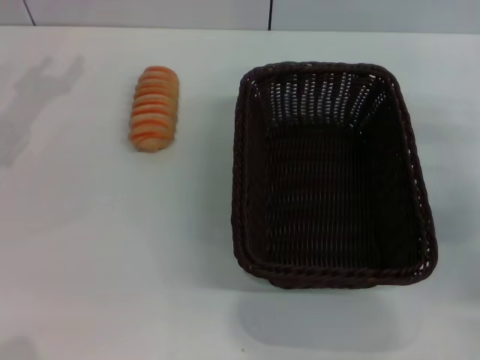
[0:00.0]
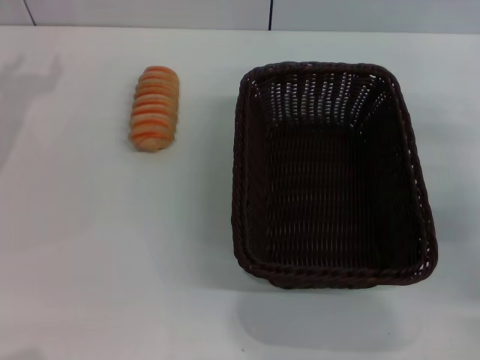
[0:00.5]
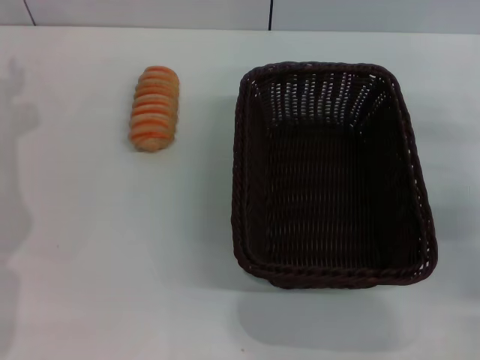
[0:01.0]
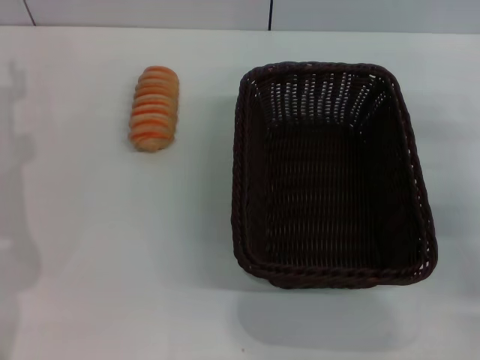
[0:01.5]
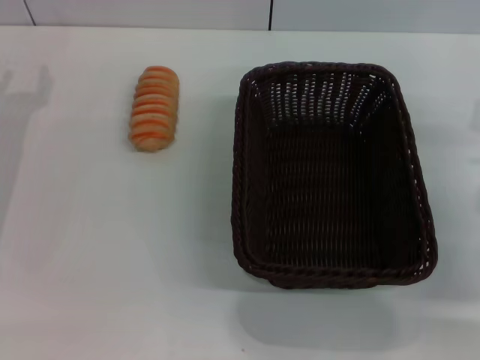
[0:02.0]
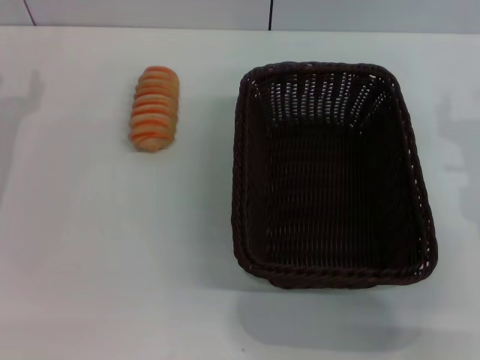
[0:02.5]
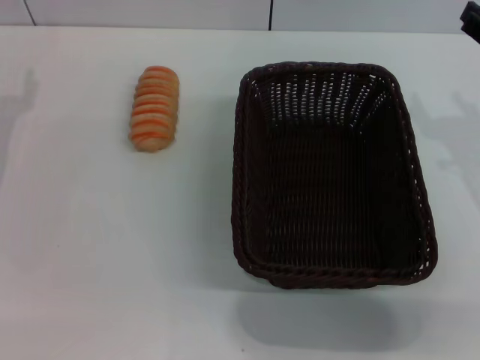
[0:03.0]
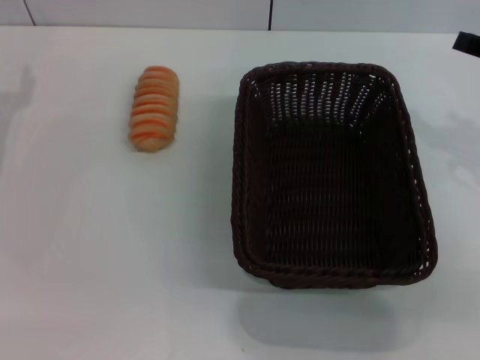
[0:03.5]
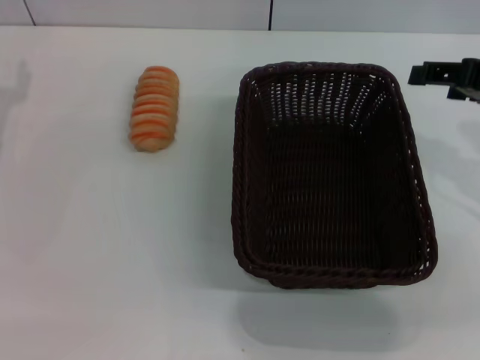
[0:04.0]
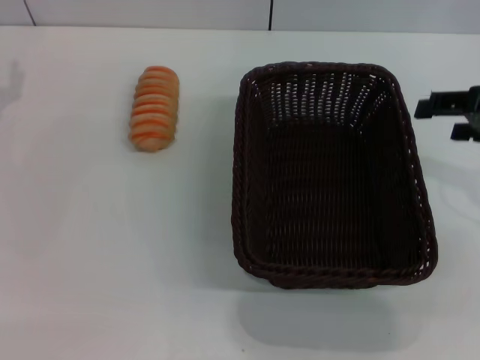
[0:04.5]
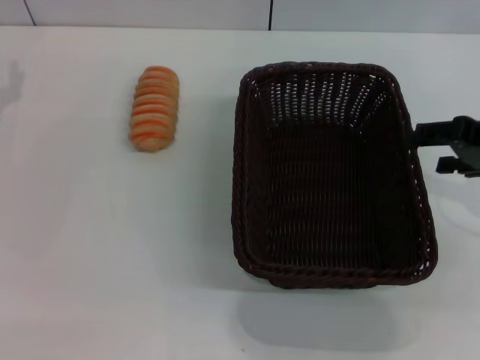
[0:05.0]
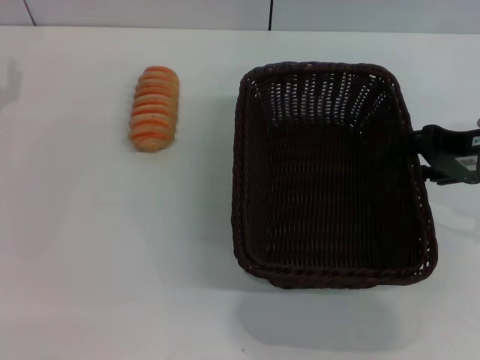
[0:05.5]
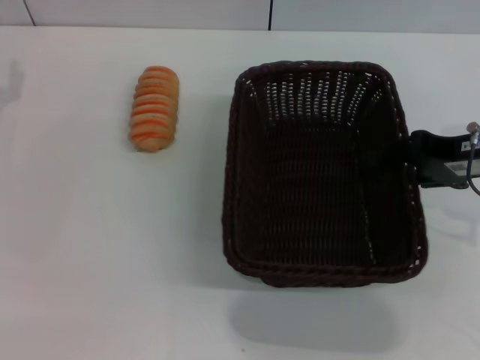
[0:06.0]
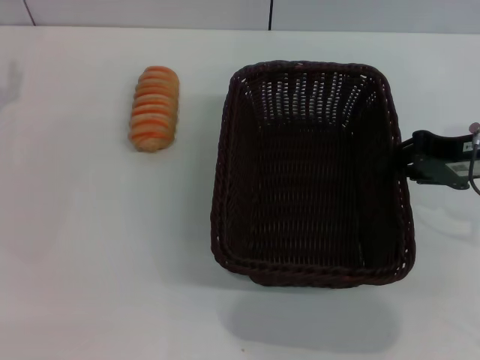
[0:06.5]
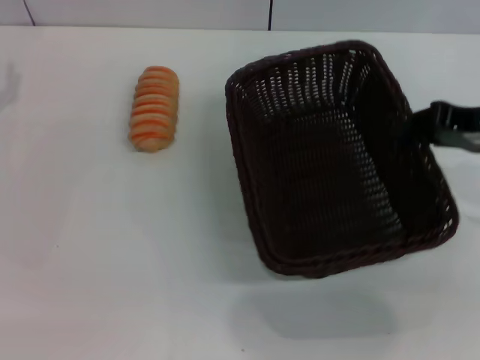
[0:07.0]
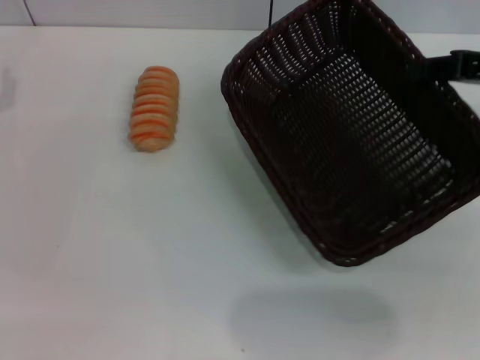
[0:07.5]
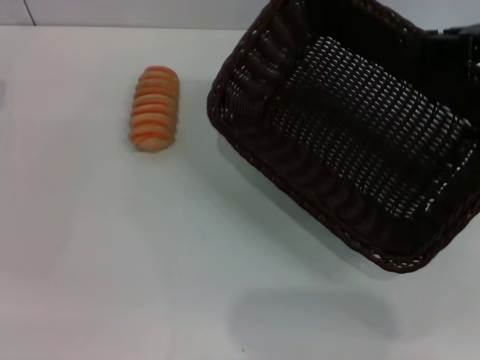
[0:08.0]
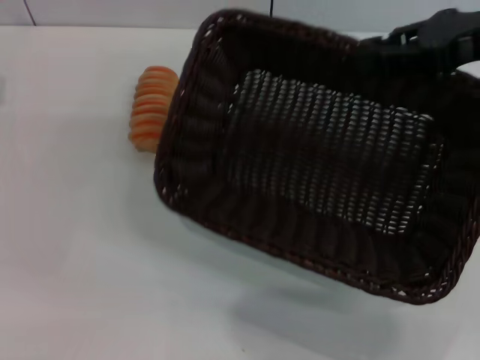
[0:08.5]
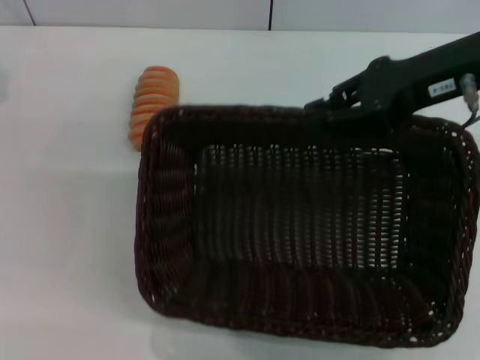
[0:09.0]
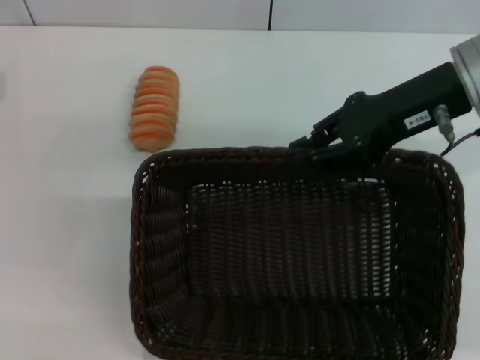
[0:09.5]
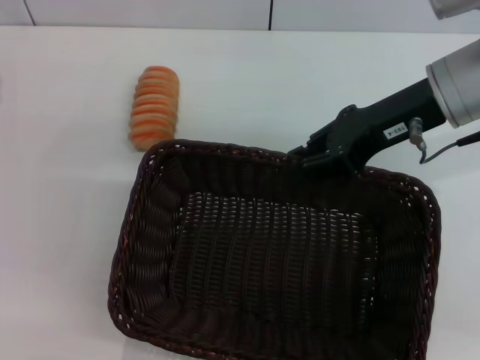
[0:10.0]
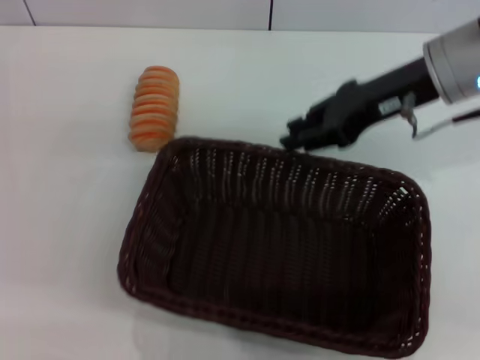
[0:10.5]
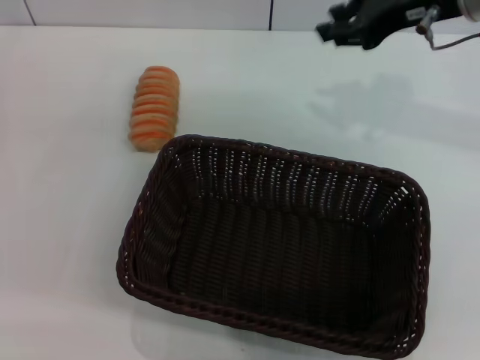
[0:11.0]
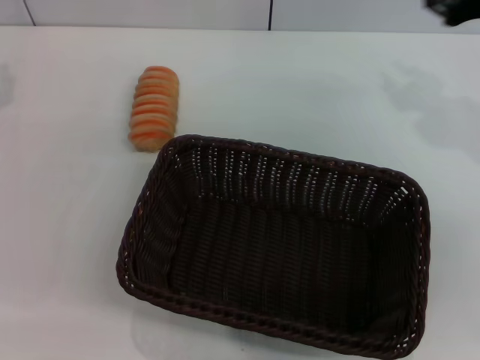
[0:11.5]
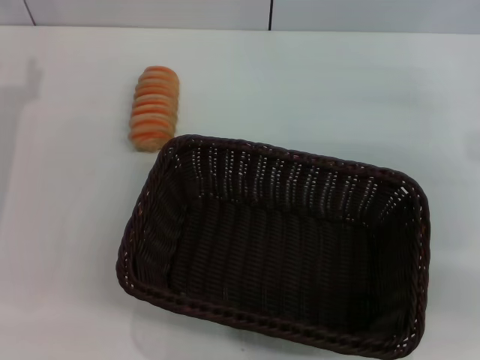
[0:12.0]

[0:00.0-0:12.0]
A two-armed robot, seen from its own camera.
Step, 0:00.0 to 0:07.5: Pick up the dark basket with the right gripper.
Step, 0:08.0 to 0:10.5: Place the dark basket in the center of view with the right gripper.
0:02.0 to 0:04.0: The right gripper shifts some 15 cm upward, and opens its fingers.
0:04.0 to 0:06.0: The right gripper travels downward by about 5 cm.
0:06.0 to 0:08.0: The right gripper shifts roughly 5 cm upward, and closes.
0:08.0 to 0:10.0: The right gripper moves to the left, about 10 cm.
0:10.0 to 0:12.0: The left gripper moves about 5 cm, while the right gripper travels to the right by about 10 cm.

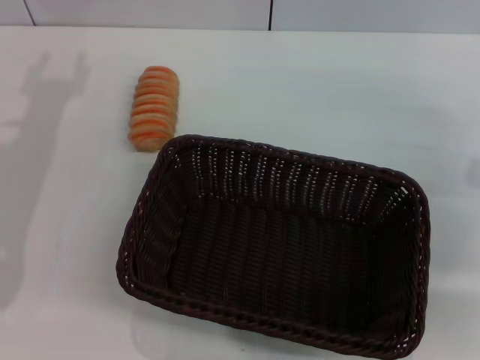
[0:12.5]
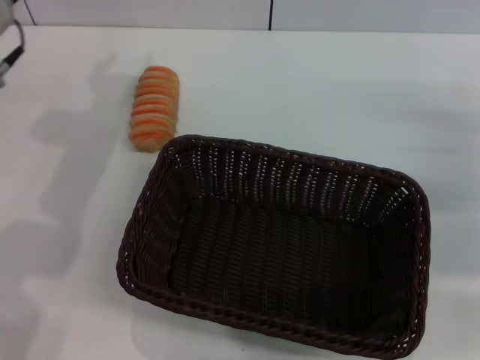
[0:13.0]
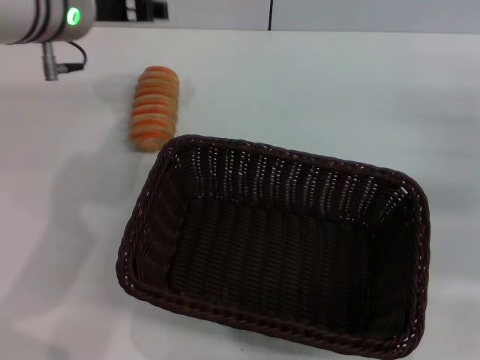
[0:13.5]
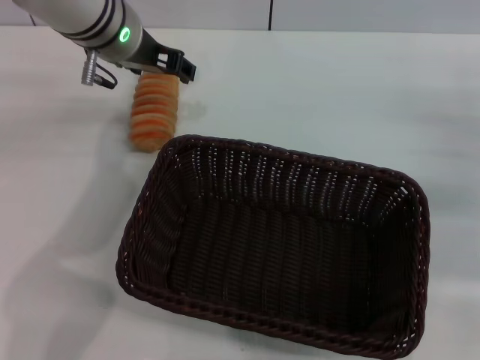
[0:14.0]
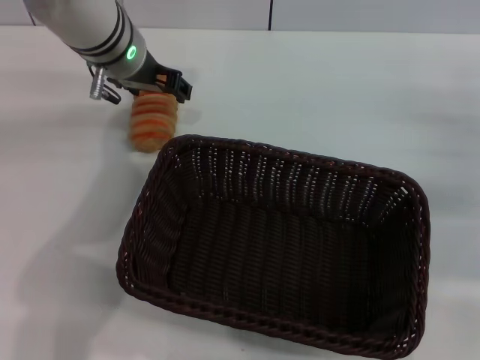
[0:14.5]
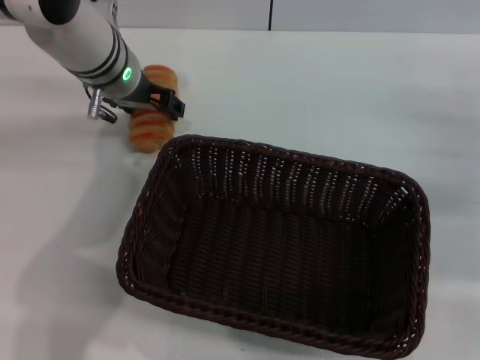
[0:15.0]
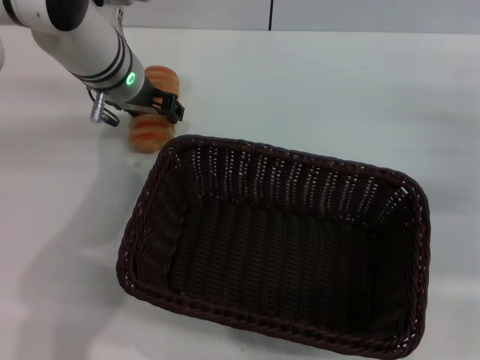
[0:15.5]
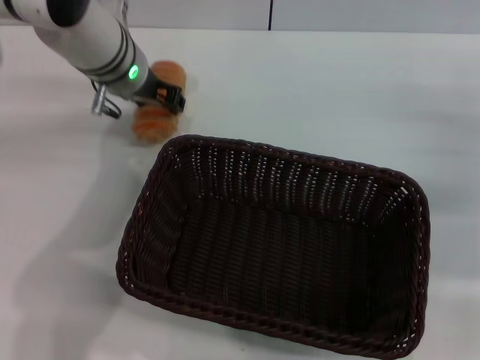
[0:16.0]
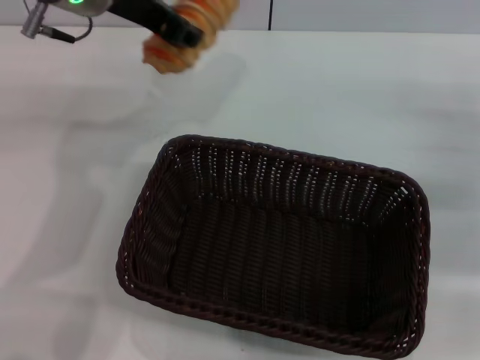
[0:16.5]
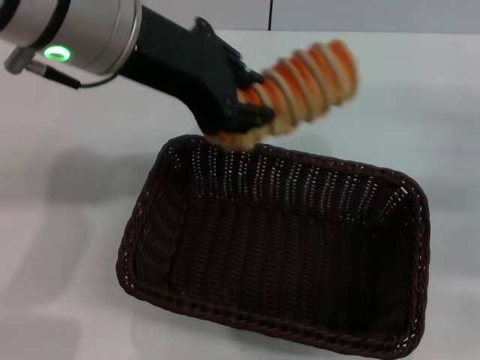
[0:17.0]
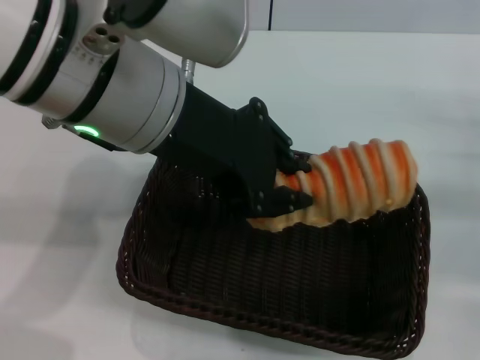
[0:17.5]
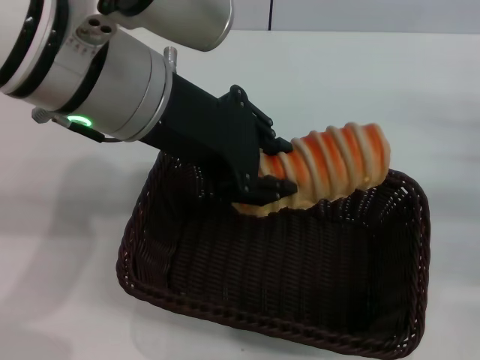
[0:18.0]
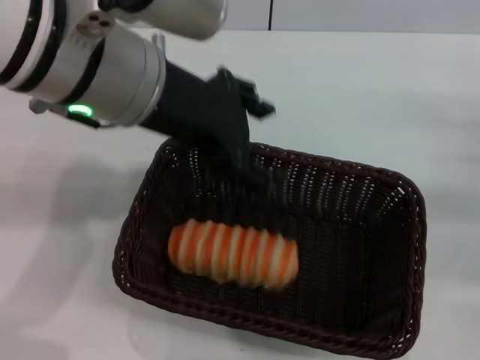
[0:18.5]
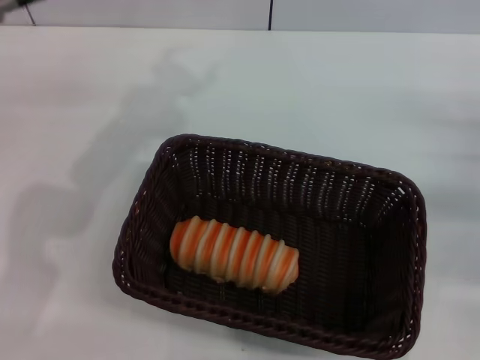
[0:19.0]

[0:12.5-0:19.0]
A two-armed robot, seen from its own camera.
Step, 0:12.5 to 0:16.0: Pick up the long bread with the left gripper.
Step, 0:16.5 to 0:18.0: Place the long bread into the dark basket with the left gripper.
0:12.5 to 0:14.5: The left gripper is displaced to the right and forward by some 20 cm.
0:14.5 to 0:17.0: The left gripper goes about 20 cm backward and upward, and closes.
0:17.0 to 0:19.0: The left gripper is displaced to the left and forward by approximately 5 cm, and opens up.

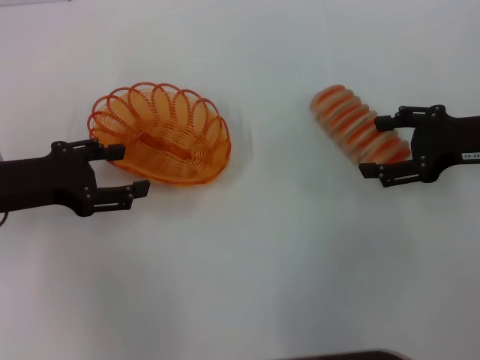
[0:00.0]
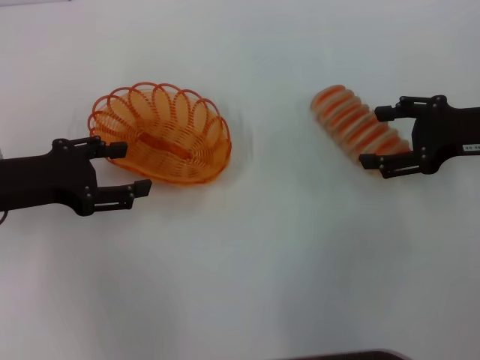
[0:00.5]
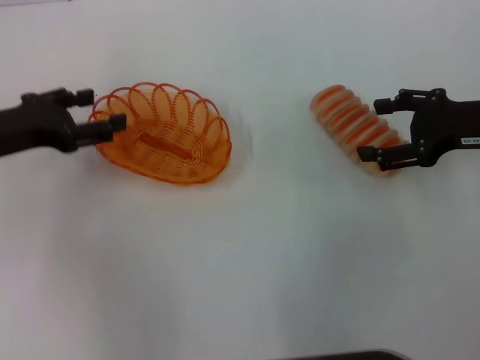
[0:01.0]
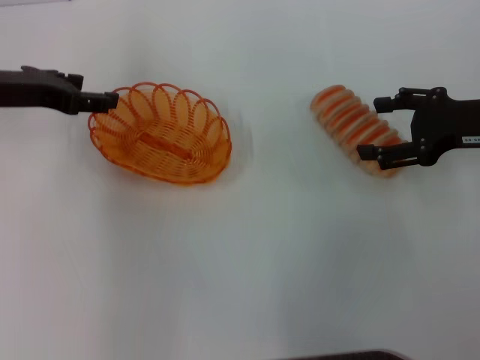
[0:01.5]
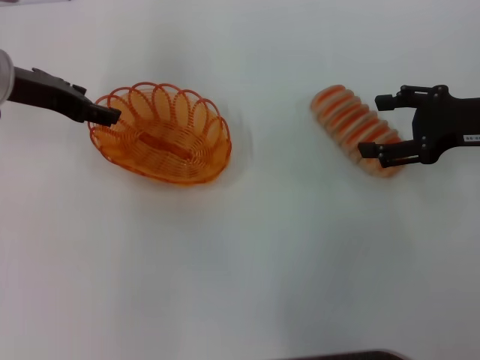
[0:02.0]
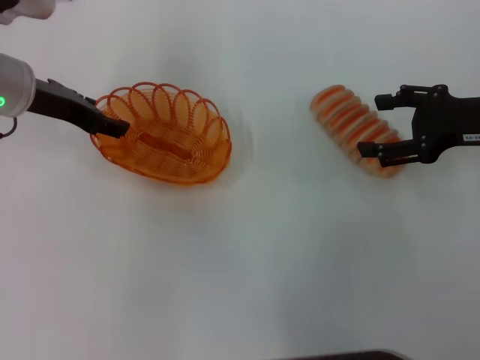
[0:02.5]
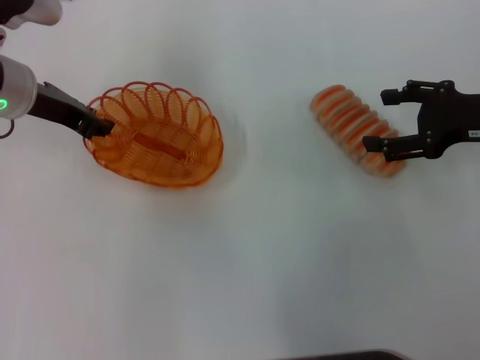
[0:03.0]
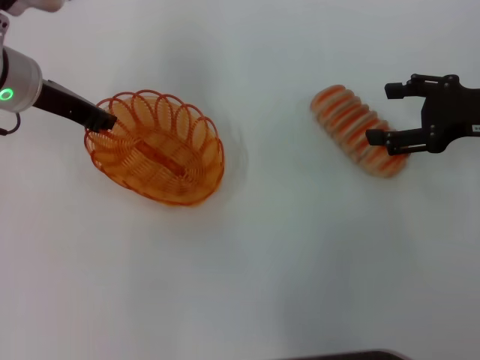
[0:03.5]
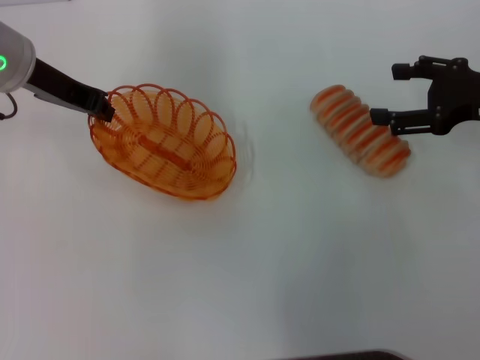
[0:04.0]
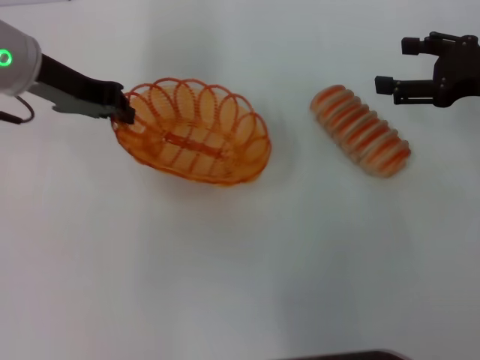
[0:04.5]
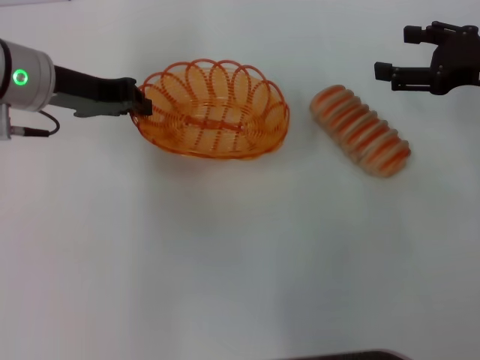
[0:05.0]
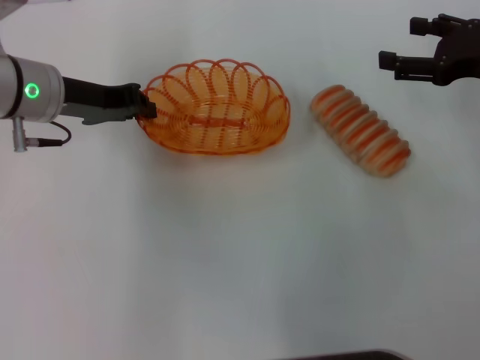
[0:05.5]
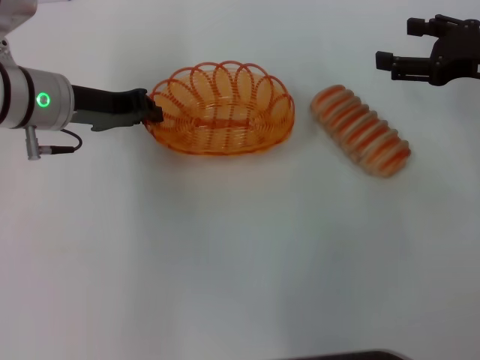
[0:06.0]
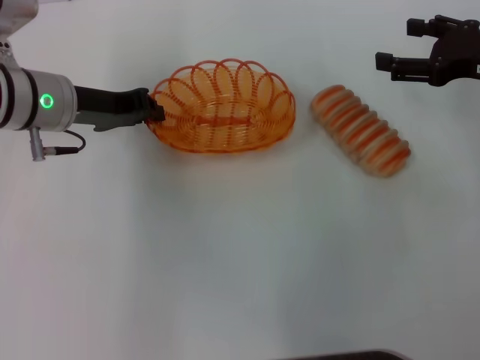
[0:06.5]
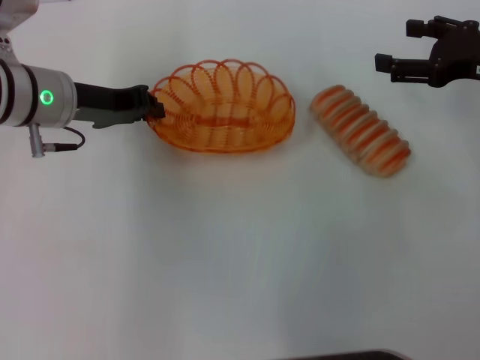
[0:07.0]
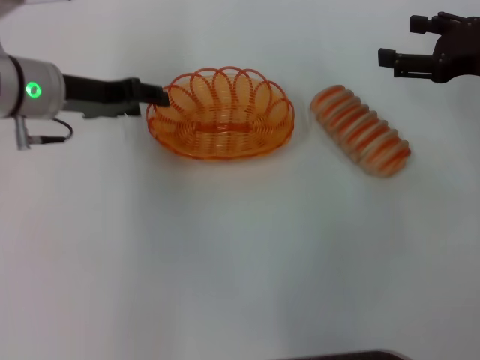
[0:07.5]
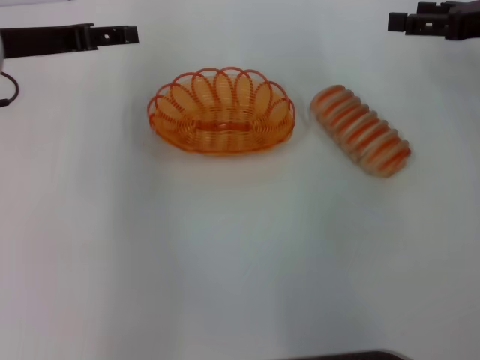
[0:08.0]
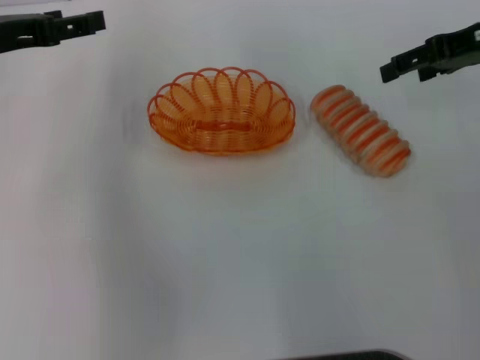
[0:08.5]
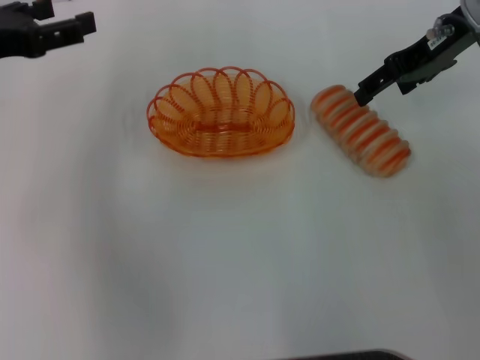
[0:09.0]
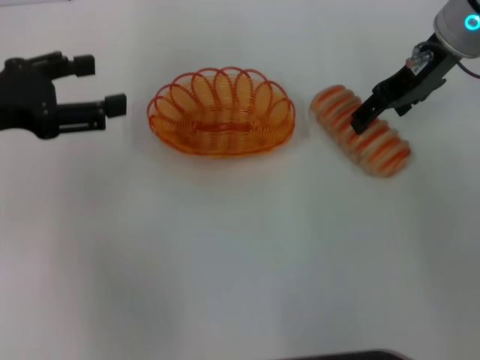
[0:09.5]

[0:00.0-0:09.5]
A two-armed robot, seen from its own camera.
Step, 0:00.0 to 0:04.0: Pick up the basket with the left gripper.
Step, 0:04.5 to 0:07.5: Place the basket in the center of view with the left gripper.
0:00.0 to 0:02.0: The left gripper goes roughly 10 cm forward and upward.
0:02.0 to 0:04.0: The left gripper closes up.
0:05.5 to 0:07.5: The left gripper opens its fingers.
0:07.5 to 0:09.5: The right gripper is displaced to the left and forward by roughly 15 cm. The left gripper is displaced to the left and backward by some 10 cm, and opens up.
